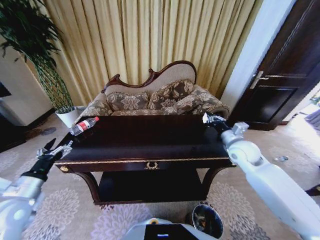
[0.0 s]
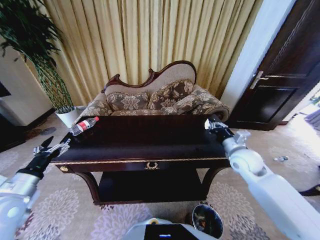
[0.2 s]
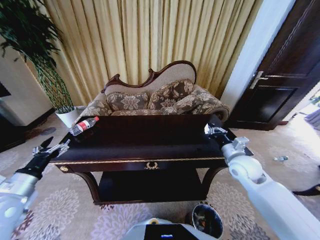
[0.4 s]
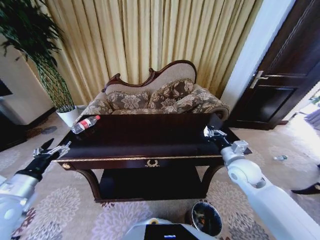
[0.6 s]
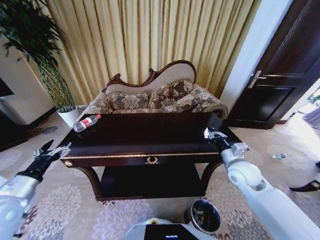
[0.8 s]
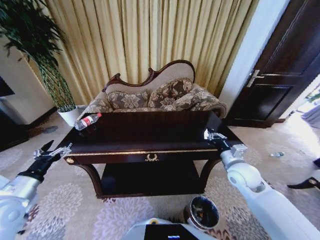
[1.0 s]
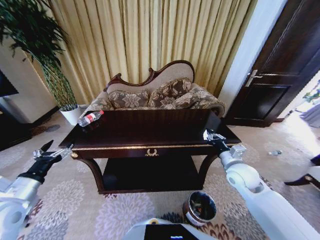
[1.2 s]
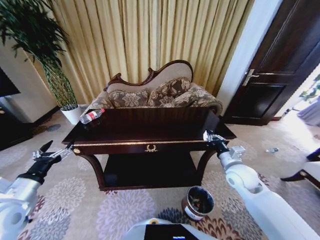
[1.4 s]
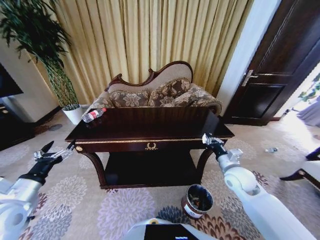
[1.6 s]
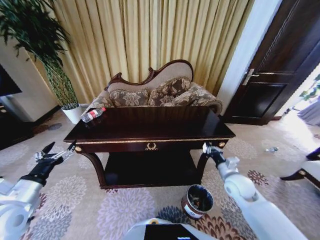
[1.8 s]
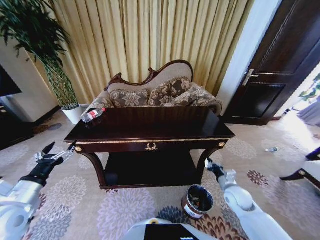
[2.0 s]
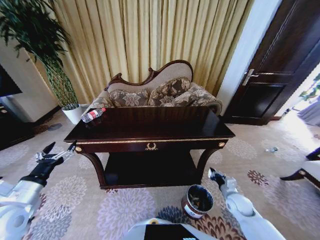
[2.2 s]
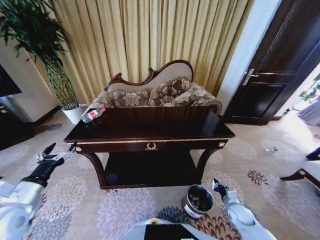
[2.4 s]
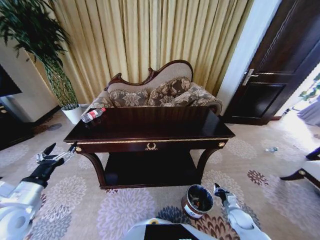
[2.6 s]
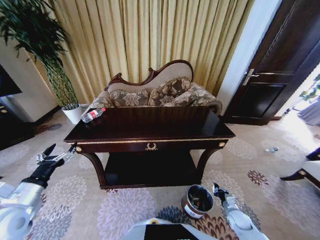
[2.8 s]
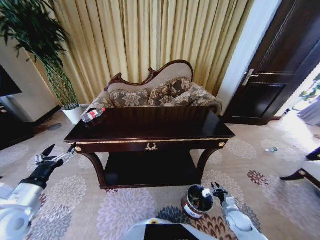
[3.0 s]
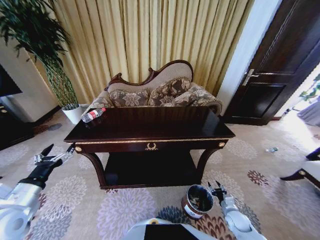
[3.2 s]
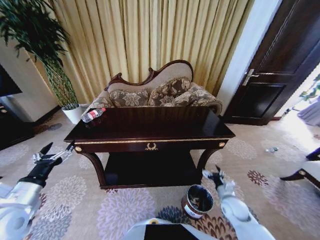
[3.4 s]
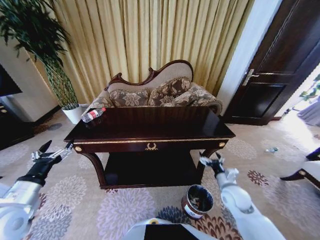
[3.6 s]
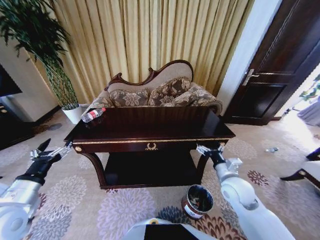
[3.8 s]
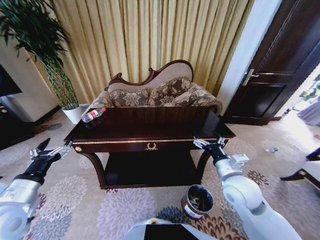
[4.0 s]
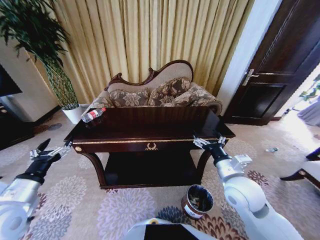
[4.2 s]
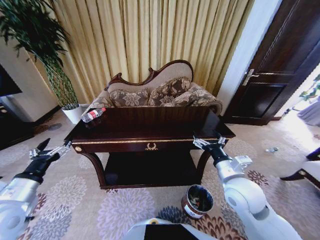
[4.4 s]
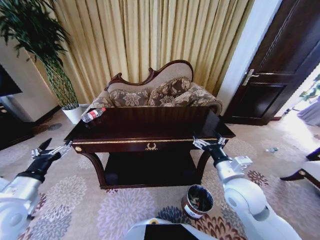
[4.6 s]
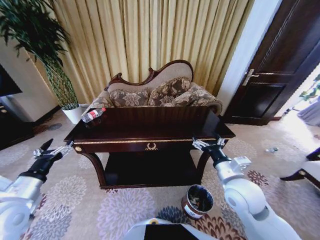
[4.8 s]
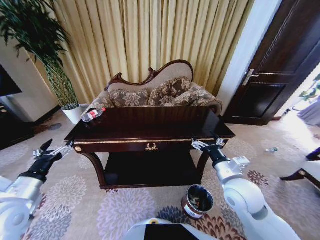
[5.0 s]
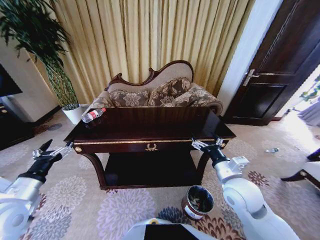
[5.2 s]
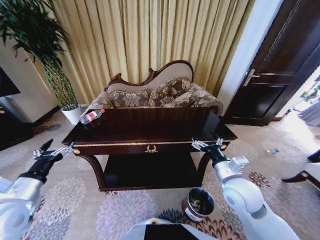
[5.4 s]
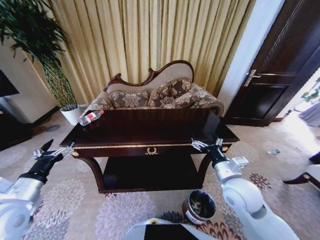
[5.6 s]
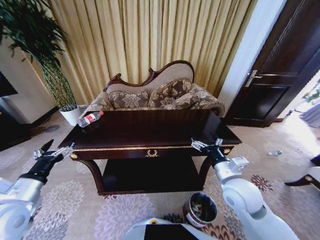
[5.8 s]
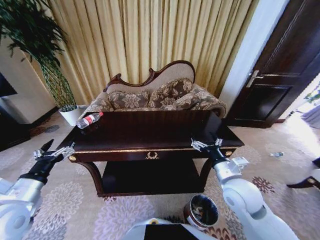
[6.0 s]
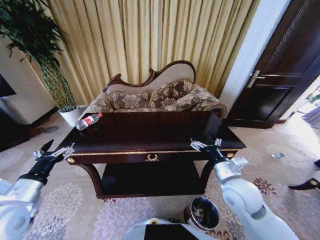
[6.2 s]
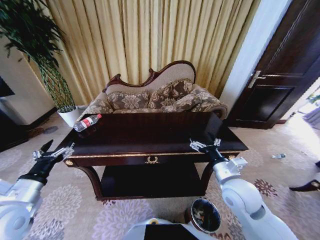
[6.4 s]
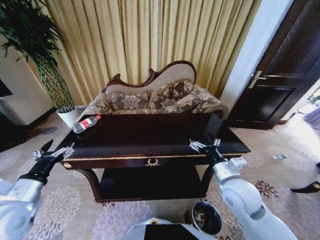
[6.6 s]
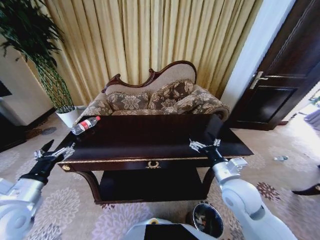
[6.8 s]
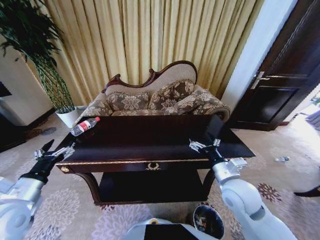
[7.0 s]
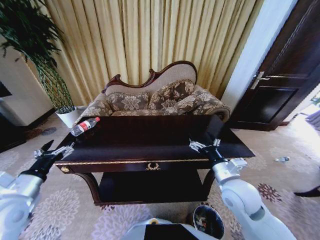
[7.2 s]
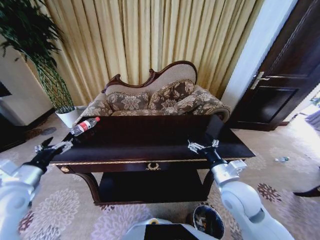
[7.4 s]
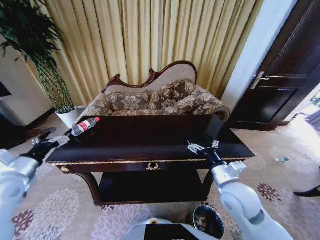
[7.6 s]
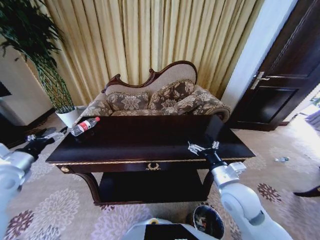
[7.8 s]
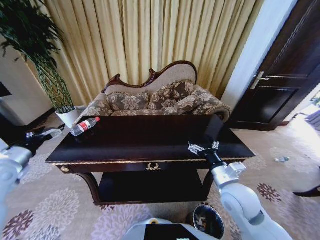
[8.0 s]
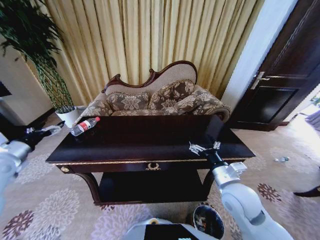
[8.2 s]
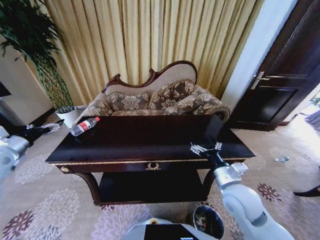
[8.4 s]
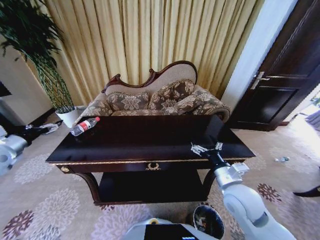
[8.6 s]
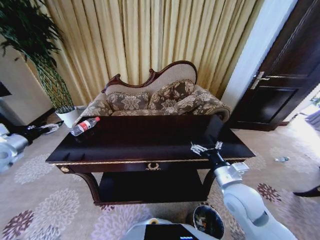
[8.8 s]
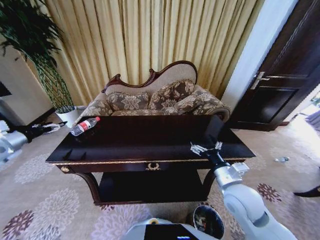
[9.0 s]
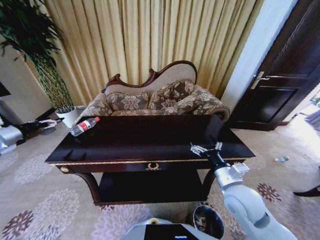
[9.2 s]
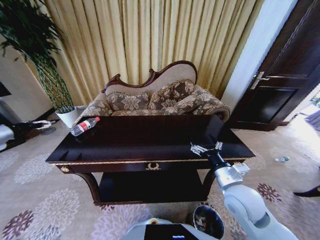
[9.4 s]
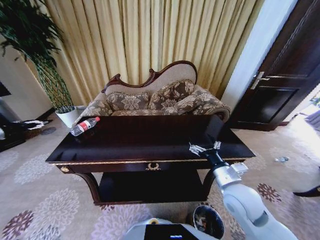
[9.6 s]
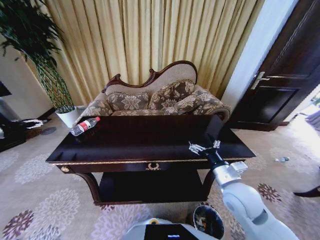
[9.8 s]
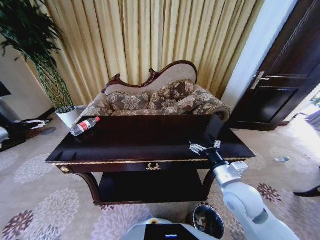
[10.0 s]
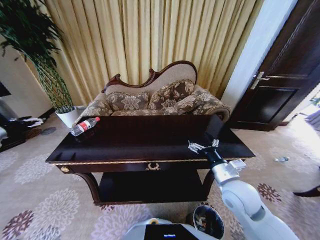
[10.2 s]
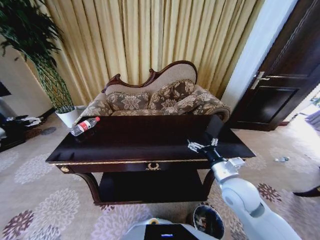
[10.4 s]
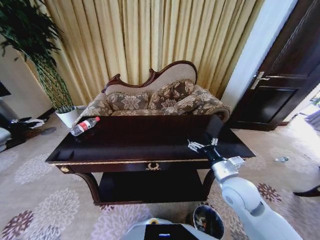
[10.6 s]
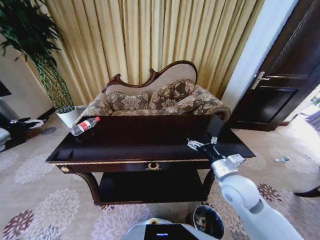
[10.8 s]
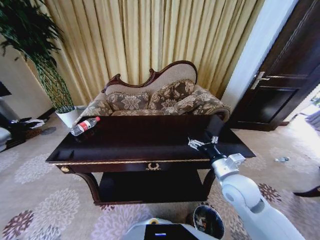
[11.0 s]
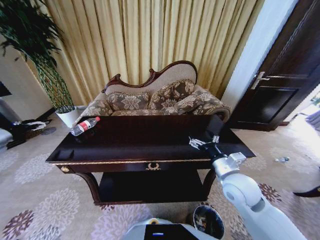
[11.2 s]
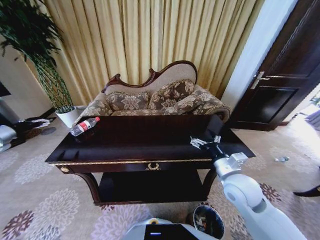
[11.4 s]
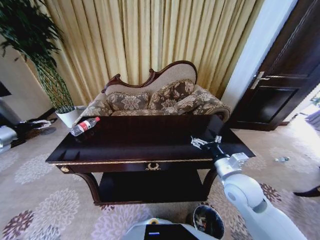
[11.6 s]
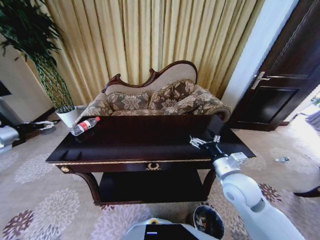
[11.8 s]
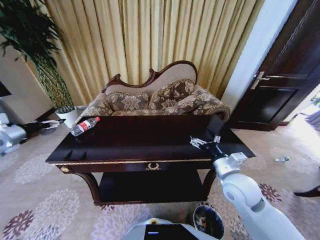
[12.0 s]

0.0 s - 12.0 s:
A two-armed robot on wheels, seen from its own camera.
Task of the whole recording: Move to the front of the table and place the trash on the table into the trash bin.
0.0 s - 1.6 s: The right gripper travels downward and backward by roughly 10 cm.
1.6 s - 3.0 s: The right gripper is displaced downward and backward by approximately 30 cm.
3.0 s - 4.4 s: The right gripper travels upward and to the left by roughly 35 cm, and opens up.
6.0 s - 7.6 s: The left gripper heads forward and to the left, covering roughly 10 cm.
7.6 s - 9.0 s: The left gripper shifts roughly 20 cm to the left and forward.
9.0 s - 10.4 s: The left gripper is displaced to the left by some 5 cm.
10.4 s - 12.0 s: The left gripper shifts about 10 cm to the right.

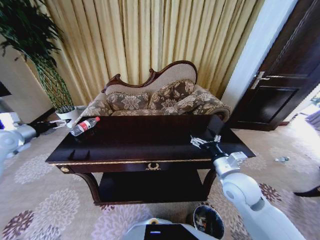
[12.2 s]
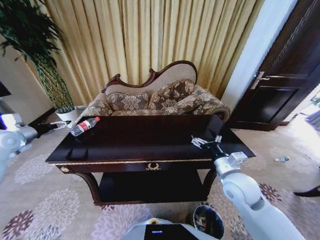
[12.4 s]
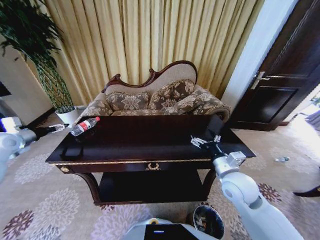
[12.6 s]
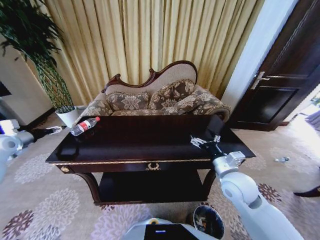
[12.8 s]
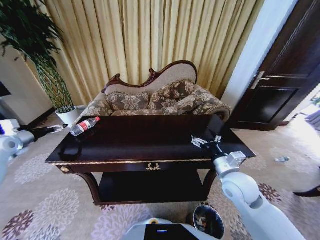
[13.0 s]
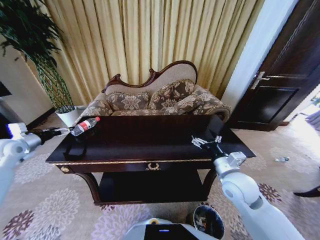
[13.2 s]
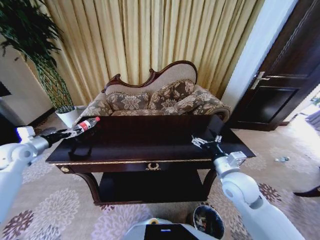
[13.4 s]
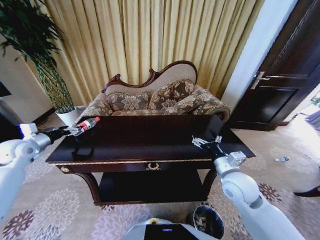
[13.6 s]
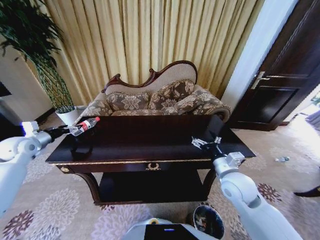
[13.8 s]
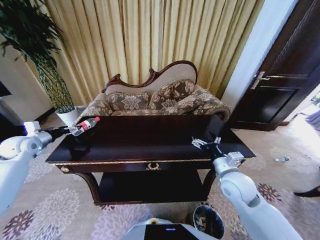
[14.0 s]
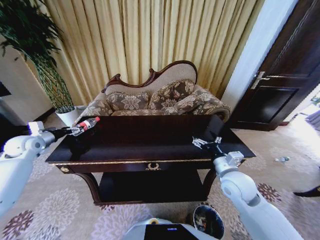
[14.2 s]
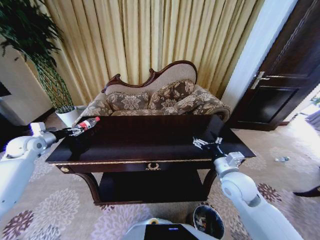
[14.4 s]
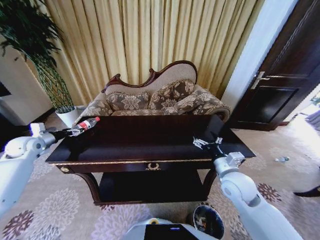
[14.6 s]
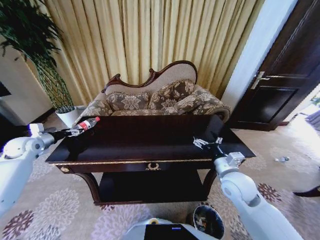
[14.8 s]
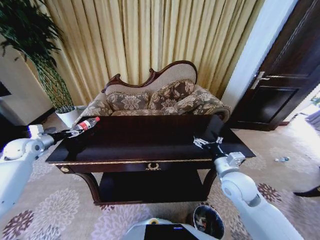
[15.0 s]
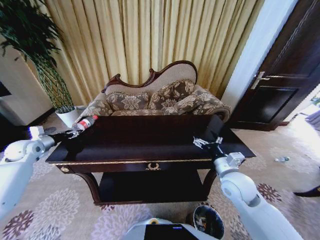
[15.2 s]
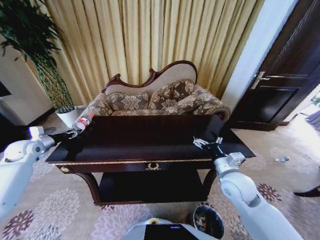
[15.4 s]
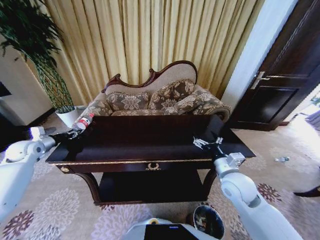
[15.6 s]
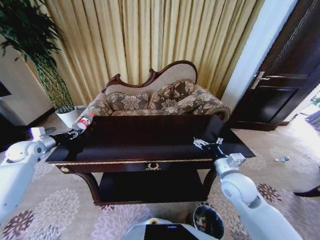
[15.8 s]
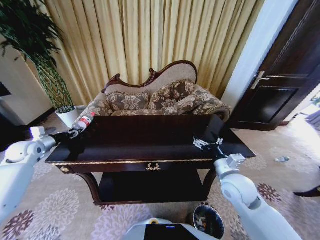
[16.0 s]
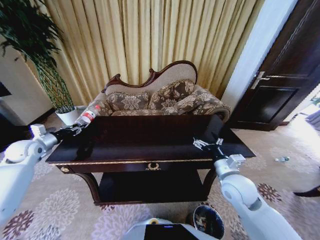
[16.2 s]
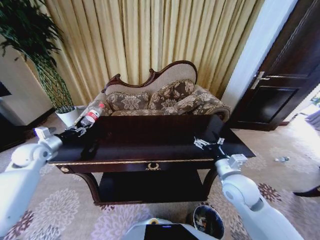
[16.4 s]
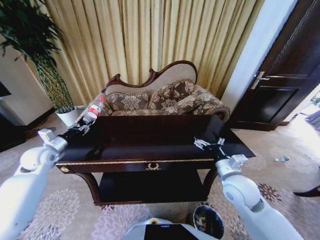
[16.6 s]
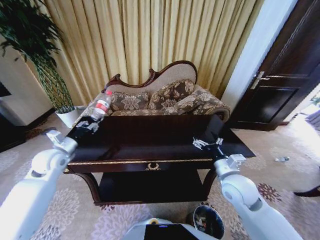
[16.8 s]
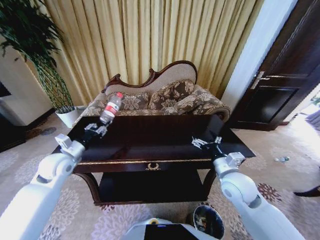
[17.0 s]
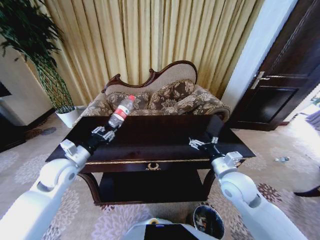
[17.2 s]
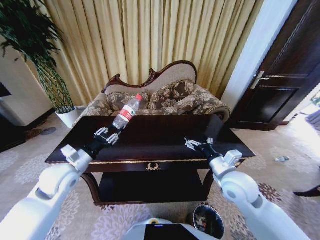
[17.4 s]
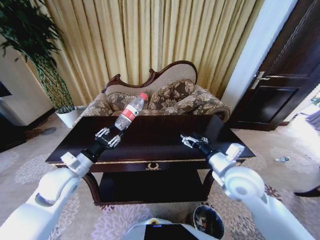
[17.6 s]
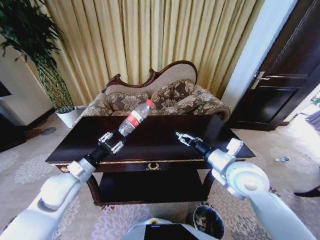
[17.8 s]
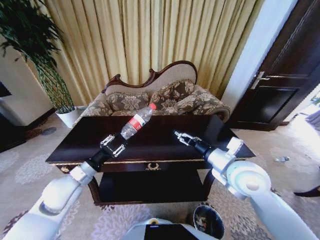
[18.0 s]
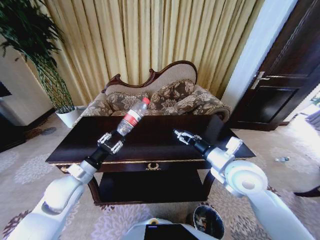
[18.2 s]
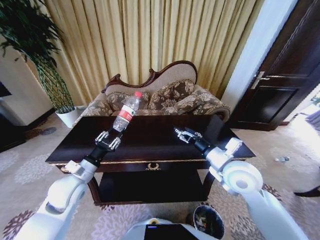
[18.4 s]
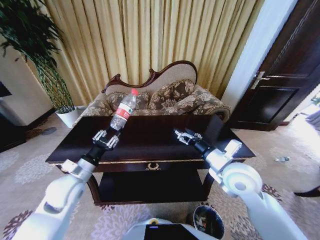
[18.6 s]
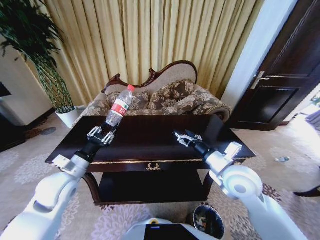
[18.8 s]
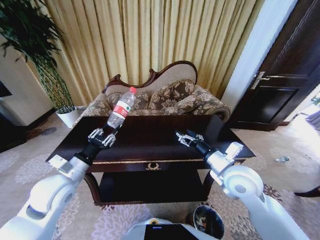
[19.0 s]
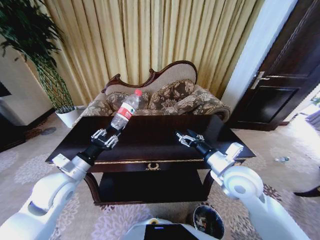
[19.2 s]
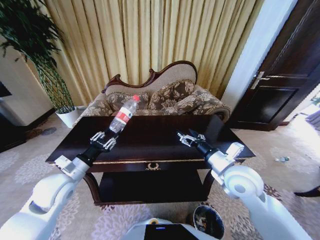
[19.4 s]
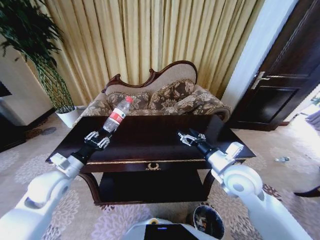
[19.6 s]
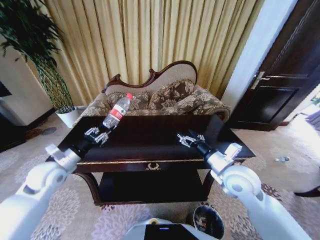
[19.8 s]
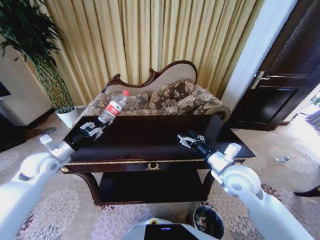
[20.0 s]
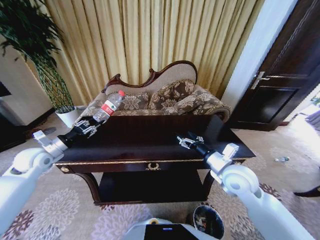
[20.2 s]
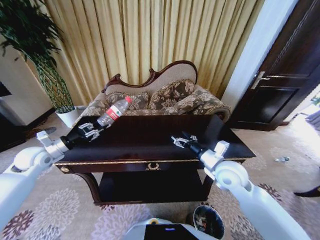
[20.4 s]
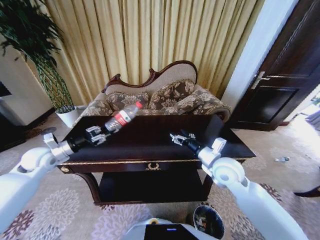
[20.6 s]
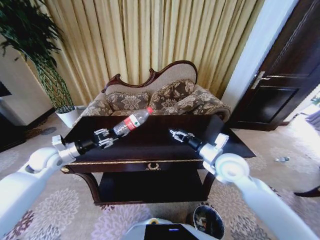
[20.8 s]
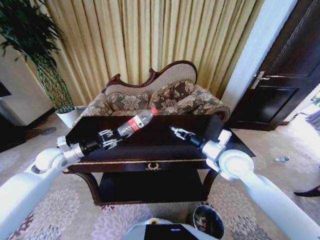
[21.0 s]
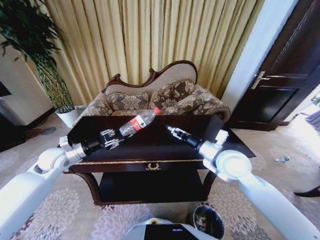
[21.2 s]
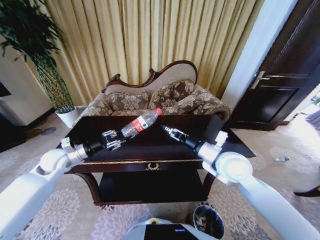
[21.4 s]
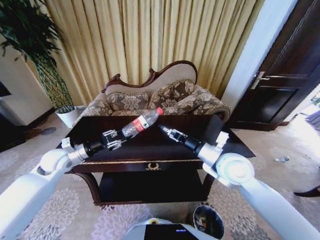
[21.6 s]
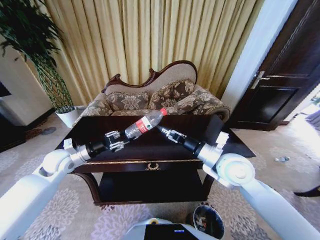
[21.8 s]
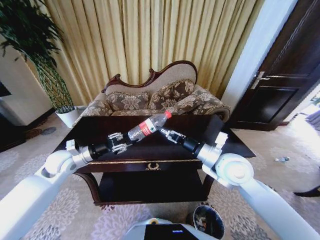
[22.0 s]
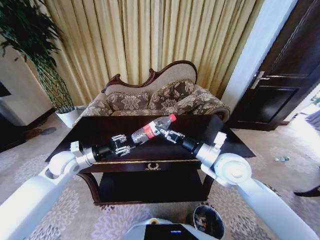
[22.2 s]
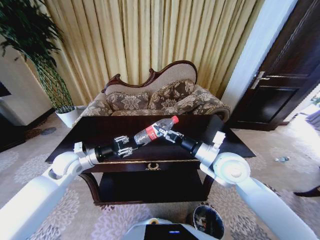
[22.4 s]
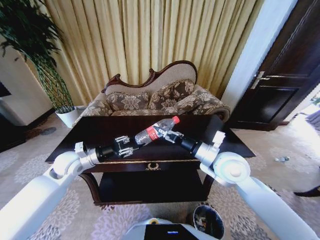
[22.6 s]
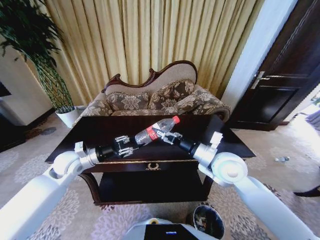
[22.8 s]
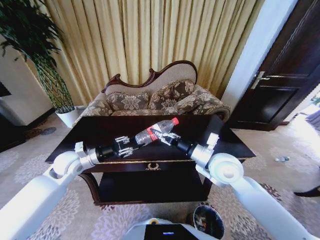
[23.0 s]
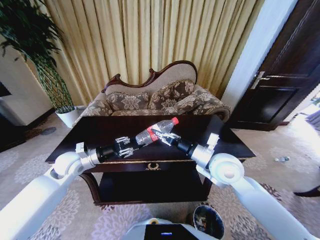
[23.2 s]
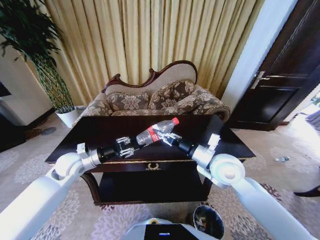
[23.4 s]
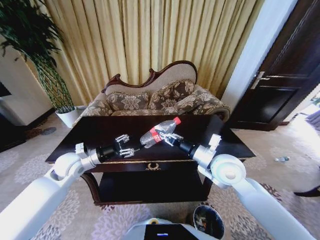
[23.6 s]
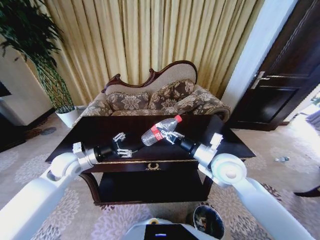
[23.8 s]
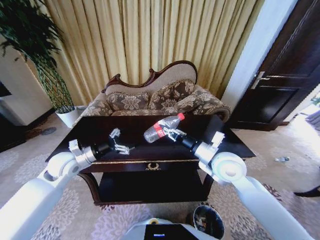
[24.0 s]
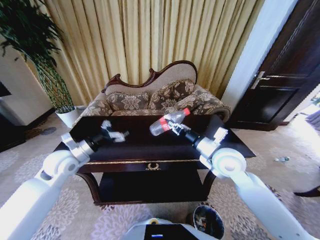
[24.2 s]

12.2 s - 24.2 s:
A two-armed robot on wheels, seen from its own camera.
Task of the whole recording: Move to the front of the table and place the trash on the table into the trash bin.
12.2 s - 13.8 s: The left gripper heads downward, covering some 5 cm.
13.8 s - 15.2 s: The left gripper moves about 5 cm, and closes.
15.2 s - 16.6 s: The left gripper heads to the right, covering some 10 cm, and closes up.
16.6 s - 18.2 s: The left gripper moves to the right and backward, some 20 cm. Meanwhile the right gripper is displaced upward by roughly 10 cm.
18.2 s - 19.8 s: The left gripper travels to the left by approximately 10 cm.
19.8 s - 21.2 s: The right gripper shifts by about 5 cm. The left gripper shifts about 5 cm forward, and reaches some 10 cm to the left, then returns.
21.2 s - 22.6 s: The left gripper travels to the right by about 5 cm.
22.6 s - 24.2 s: The right gripper closes up. Meanwhile the left gripper opens its fingers.
